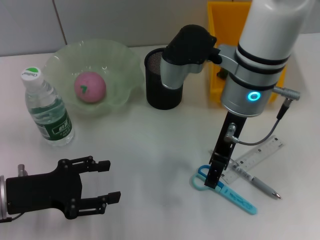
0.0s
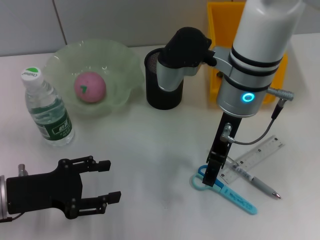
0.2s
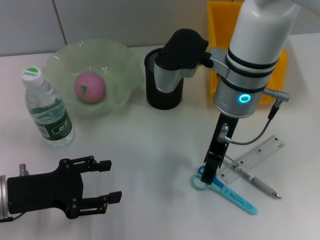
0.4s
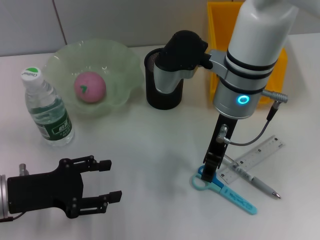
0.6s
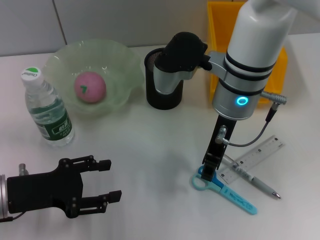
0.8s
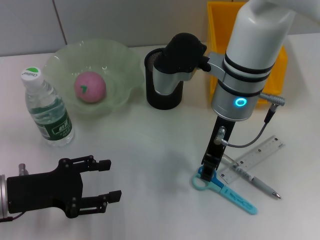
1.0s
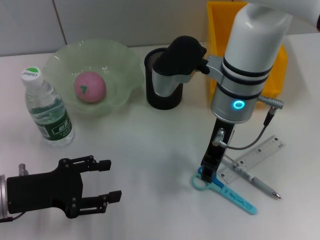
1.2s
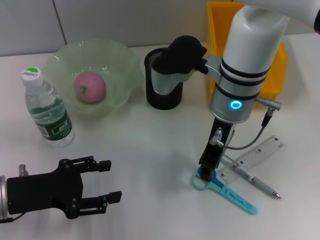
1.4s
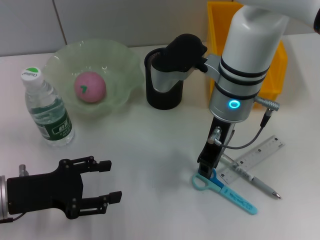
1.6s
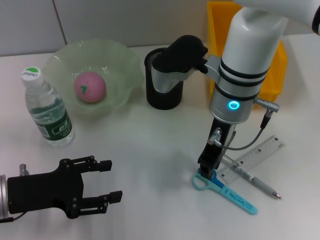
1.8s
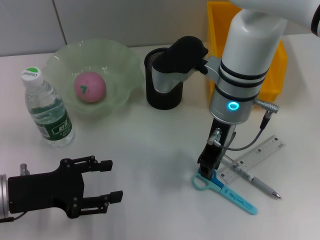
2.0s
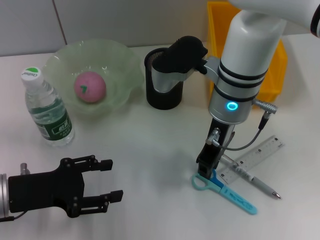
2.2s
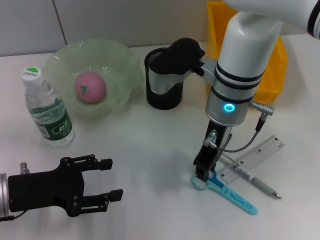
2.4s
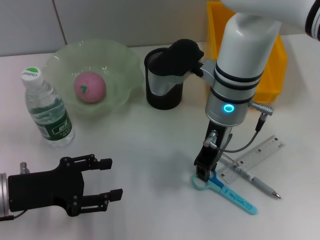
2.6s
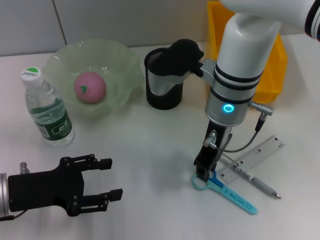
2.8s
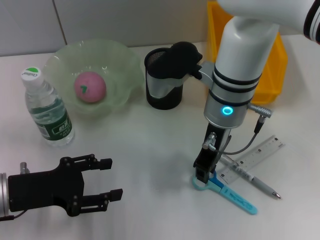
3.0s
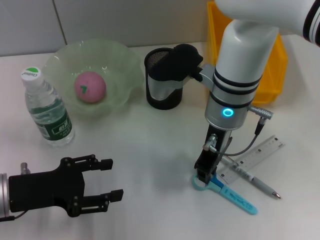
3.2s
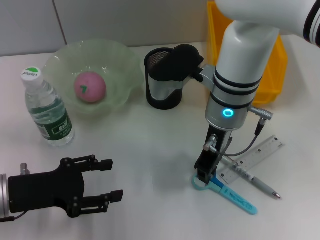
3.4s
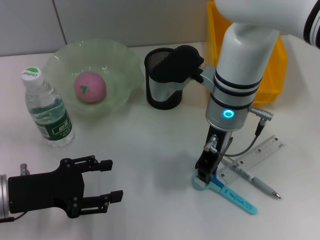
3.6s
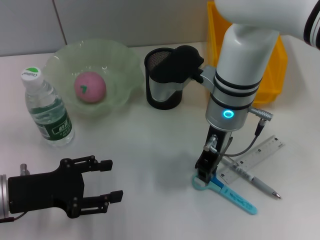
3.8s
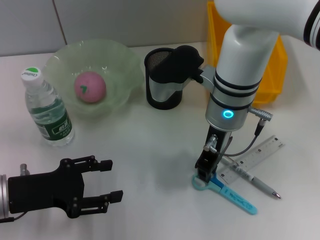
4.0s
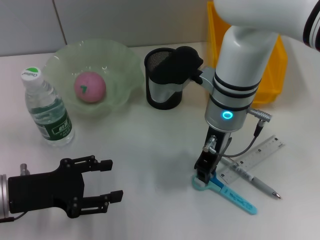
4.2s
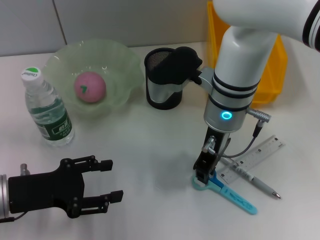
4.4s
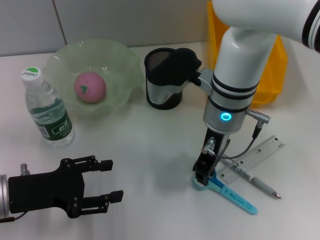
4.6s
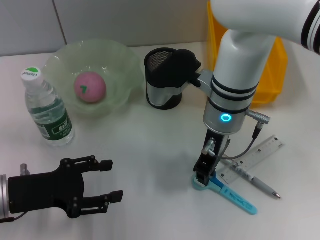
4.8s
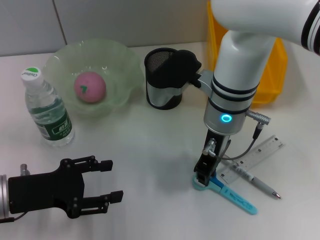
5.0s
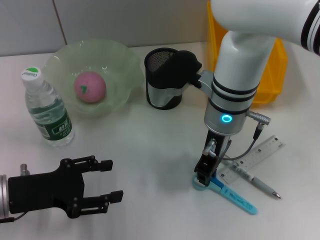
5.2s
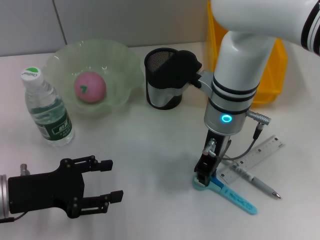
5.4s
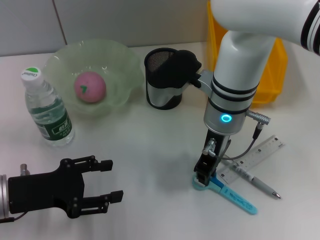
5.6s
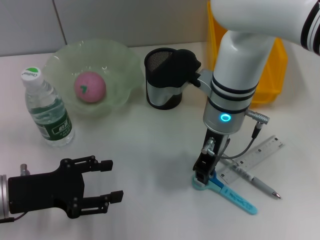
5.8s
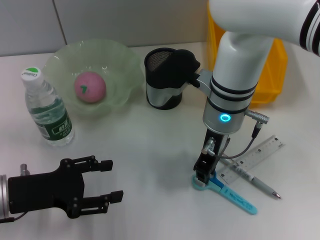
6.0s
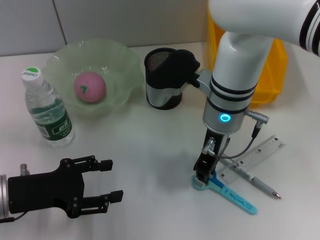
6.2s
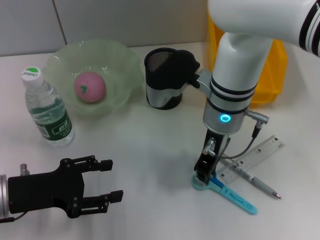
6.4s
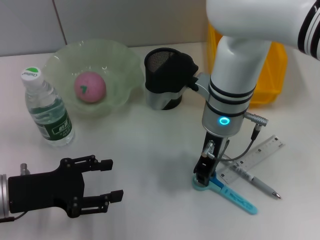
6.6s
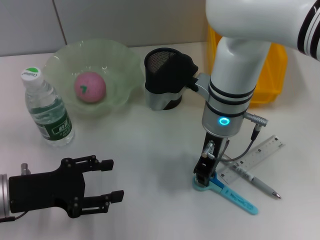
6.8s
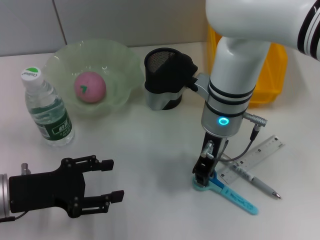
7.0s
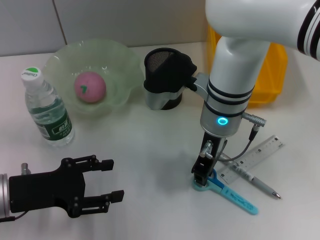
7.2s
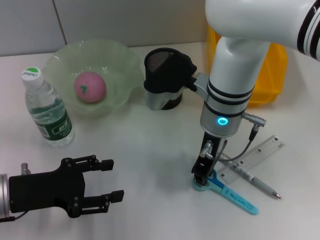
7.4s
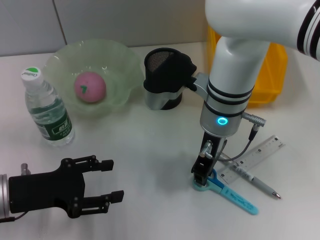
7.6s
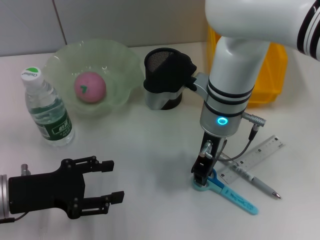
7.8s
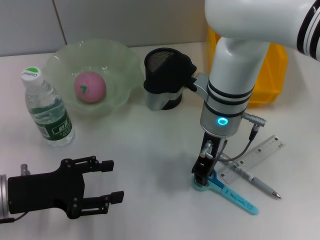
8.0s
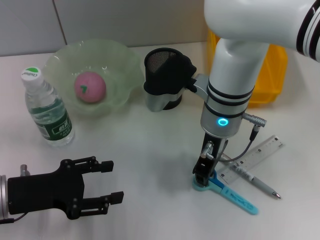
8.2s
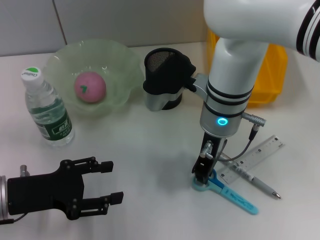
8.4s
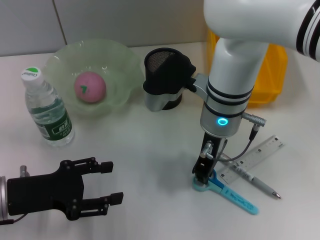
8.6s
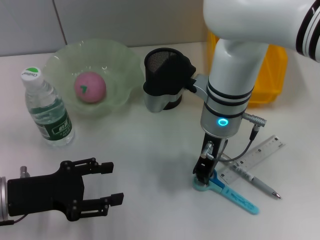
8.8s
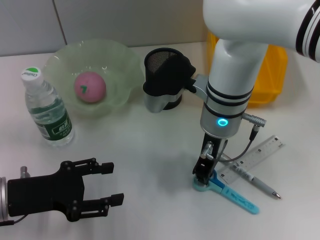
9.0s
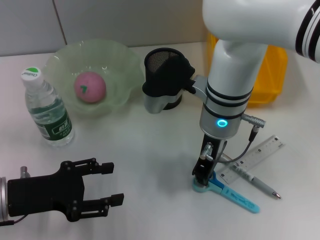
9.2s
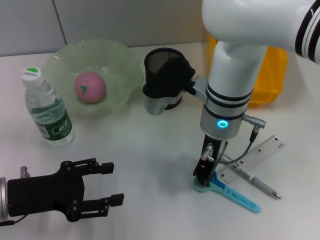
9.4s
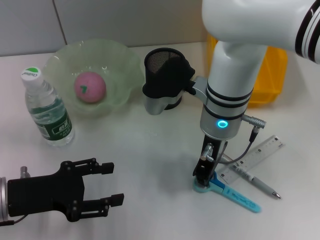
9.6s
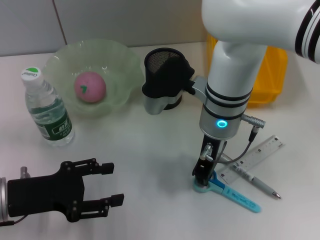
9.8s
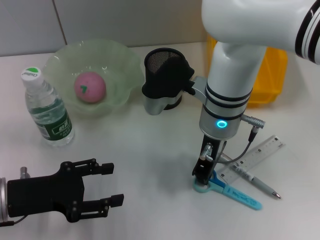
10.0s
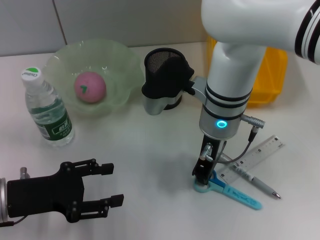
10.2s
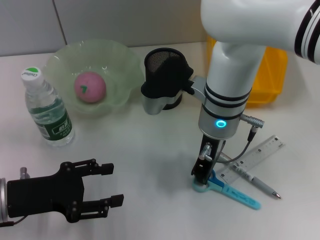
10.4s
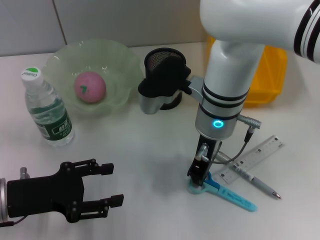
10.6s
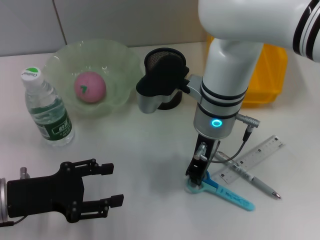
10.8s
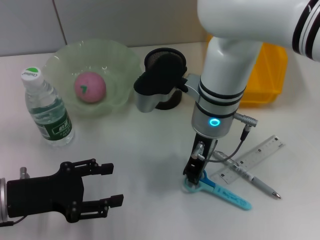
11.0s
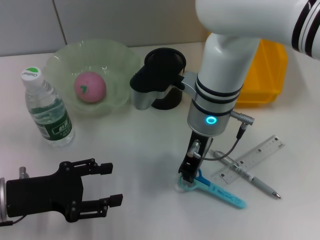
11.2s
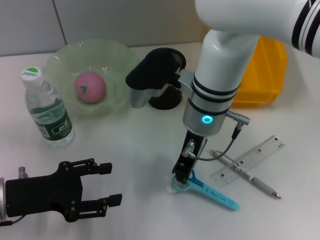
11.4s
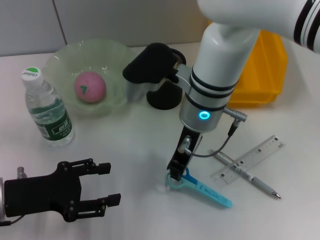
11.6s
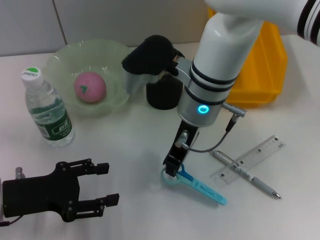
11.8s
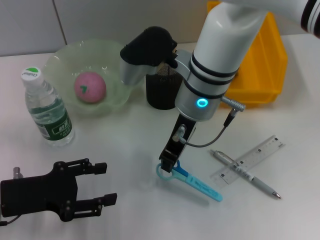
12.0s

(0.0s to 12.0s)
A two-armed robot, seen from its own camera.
Step, 0.0s - 9.8s: Grab the blue scissors with the right hand.
0.0s - 1.6s: The right gripper closes its fingers.
1.6s - 3.0s: The two grippers keep their place.
3.0s - 6.0s: The two grippers keep their place.
6.0s - 10.4s: Neither gripper changes place.

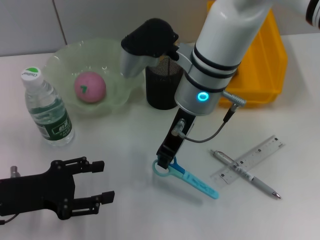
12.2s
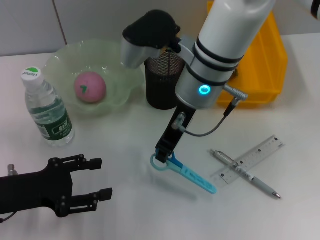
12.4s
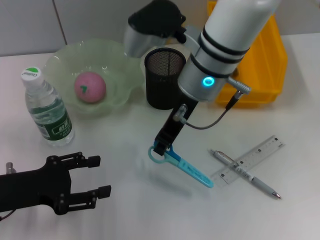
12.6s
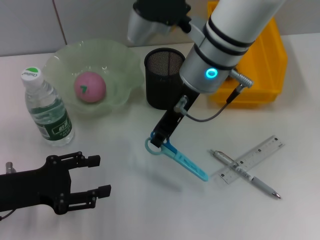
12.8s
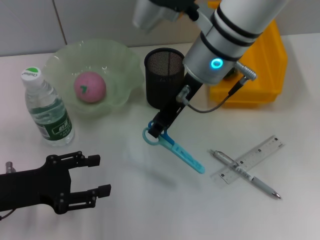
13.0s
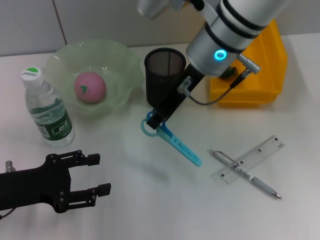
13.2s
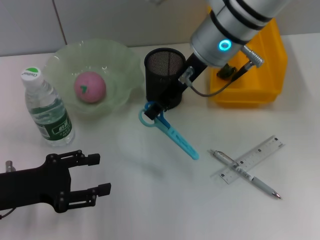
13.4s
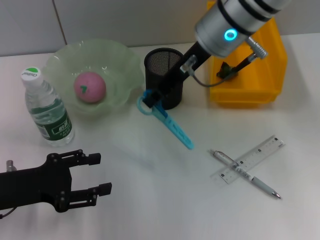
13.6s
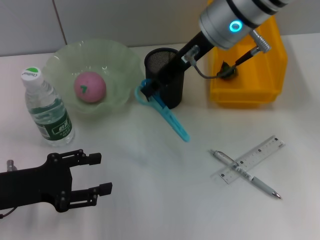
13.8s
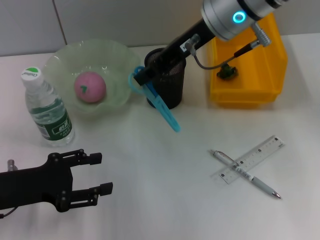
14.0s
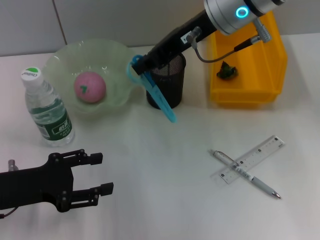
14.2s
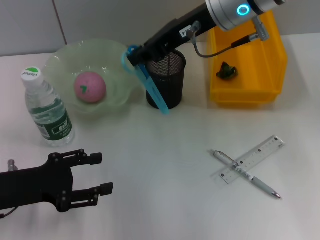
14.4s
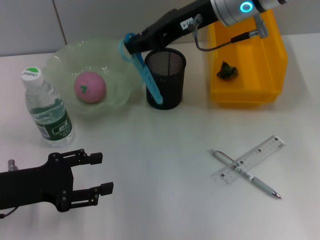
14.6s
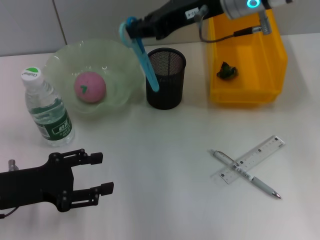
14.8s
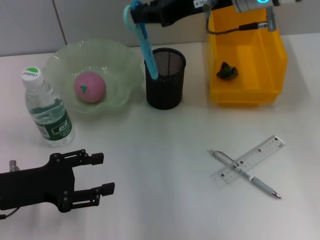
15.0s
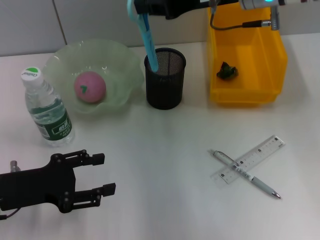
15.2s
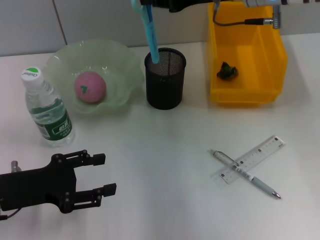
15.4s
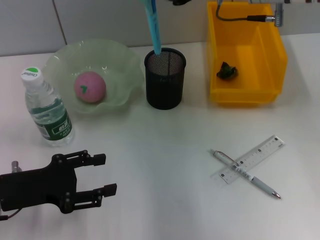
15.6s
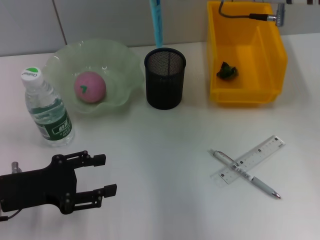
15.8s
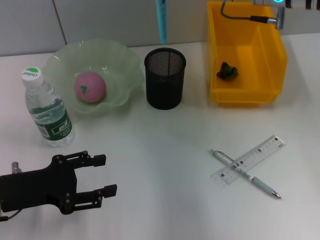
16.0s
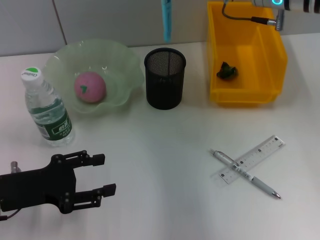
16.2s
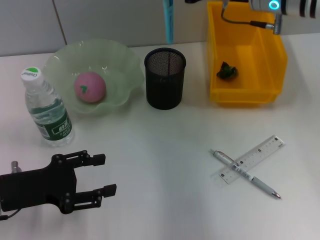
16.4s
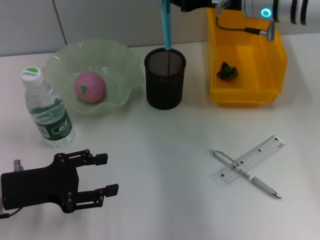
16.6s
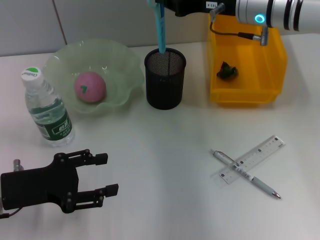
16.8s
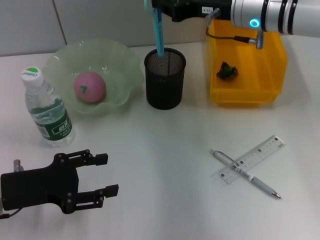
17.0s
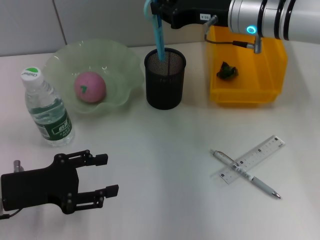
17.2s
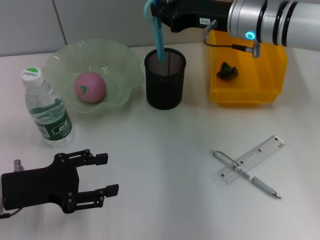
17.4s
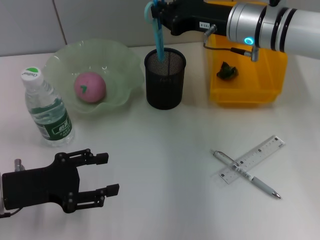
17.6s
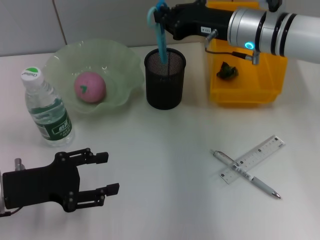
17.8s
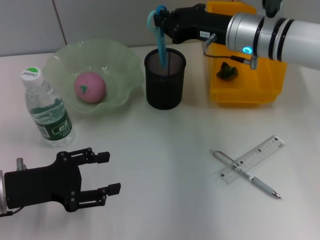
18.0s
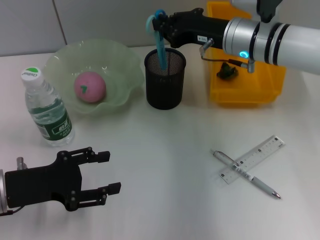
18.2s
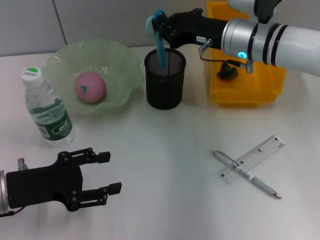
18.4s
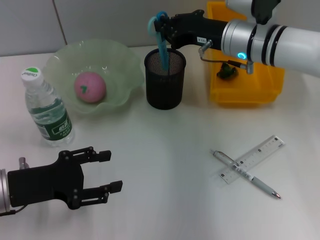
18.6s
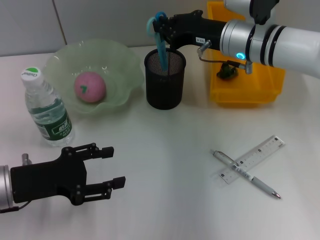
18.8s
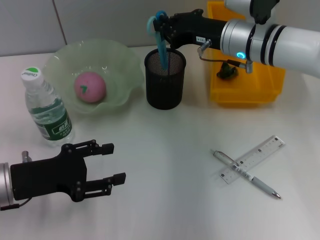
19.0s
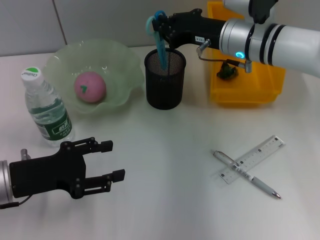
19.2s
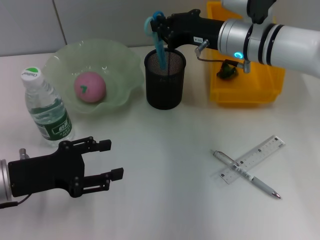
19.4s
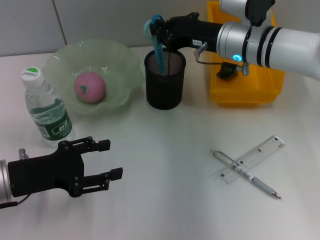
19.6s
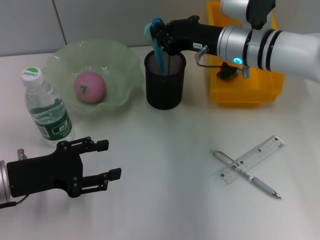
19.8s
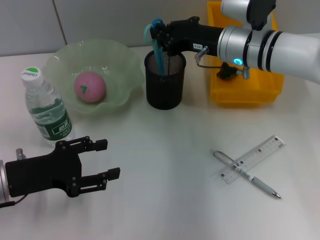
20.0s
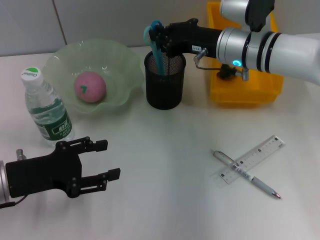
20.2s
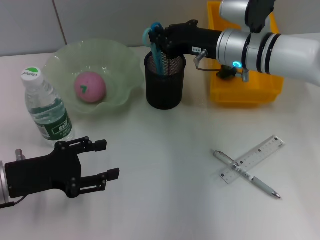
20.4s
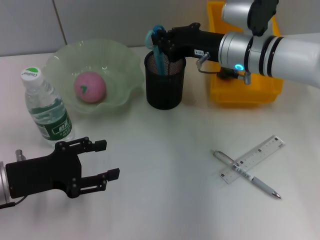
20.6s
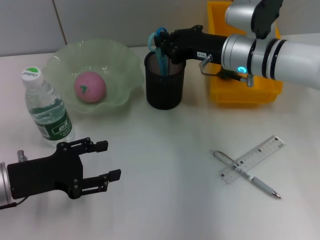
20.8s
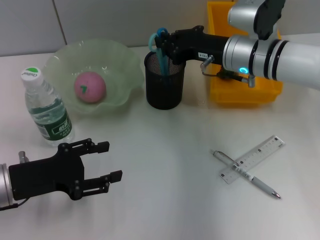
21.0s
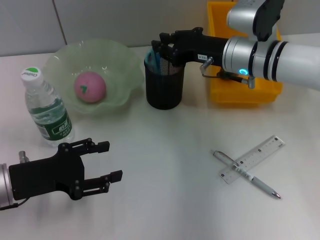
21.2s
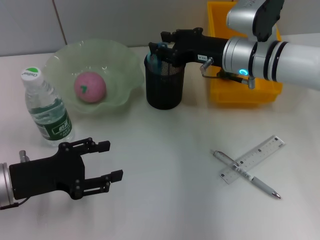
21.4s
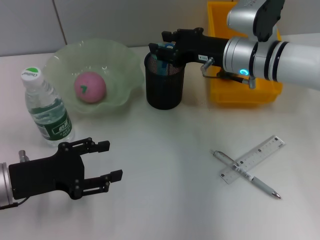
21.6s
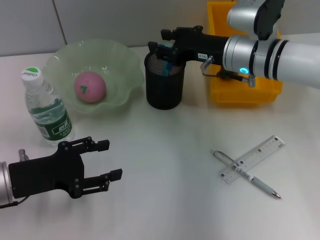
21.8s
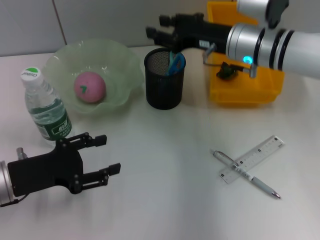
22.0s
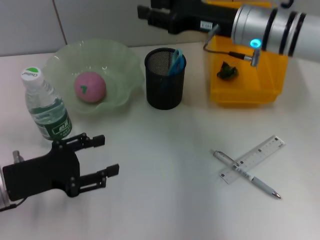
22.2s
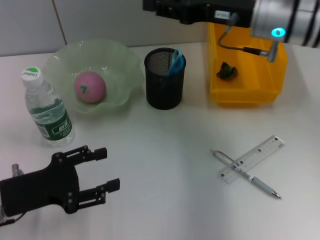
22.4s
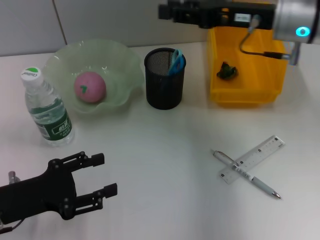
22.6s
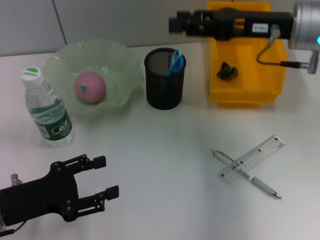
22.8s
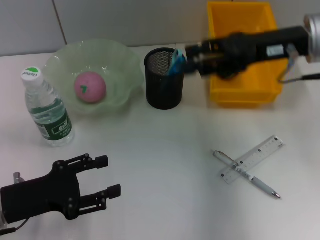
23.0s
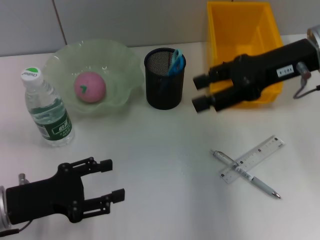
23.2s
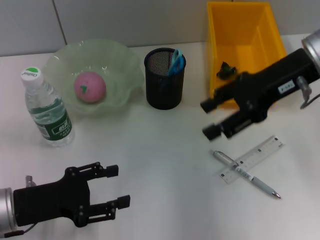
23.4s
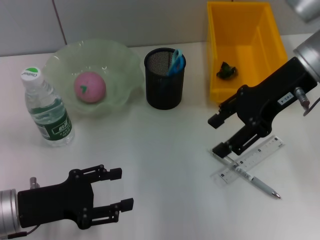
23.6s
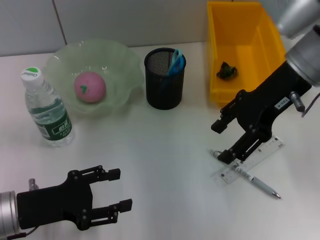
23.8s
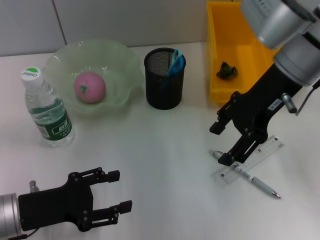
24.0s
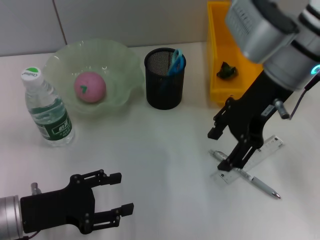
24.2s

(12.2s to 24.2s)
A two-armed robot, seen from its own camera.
Step, 12.2s - 22.0s: Place the blue scissors into the pen holder with the right hand.
12.2s - 13.8s: The right gripper moves upward, roughly 5 cm.
13.8s - 15.2s: The right gripper is displaced to the right by roughly 5 cm.
15.2s - 16.6s: The right gripper moves downward, about 5 cm.
16.6s - 18.2s: The right gripper is displaced downward by roughly 5 cm.
18.2s - 19.8s: Neither gripper changes place.
19.8s - 21.2s: There are only small adjustments of the grippers.
21.2s - 22.6s: The right gripper travels upward by approximately 10 cm, and opens.
22.6s - 24.2s: The right gripper moves roughly 5 cm, and opens.
